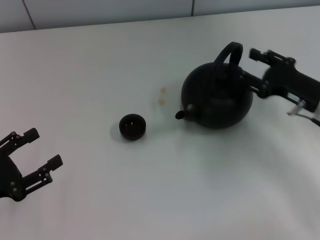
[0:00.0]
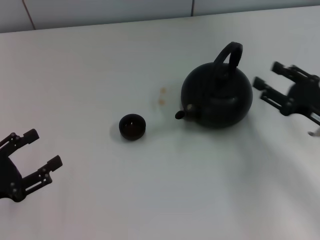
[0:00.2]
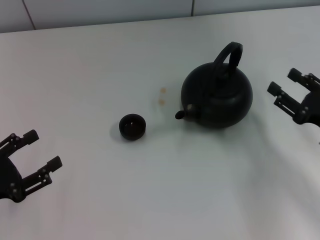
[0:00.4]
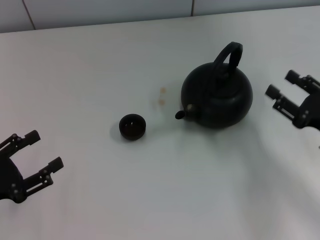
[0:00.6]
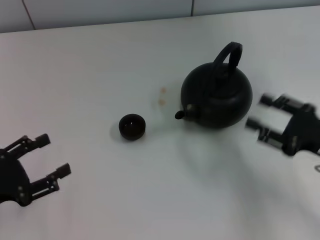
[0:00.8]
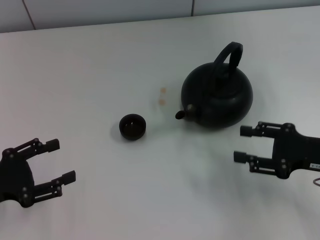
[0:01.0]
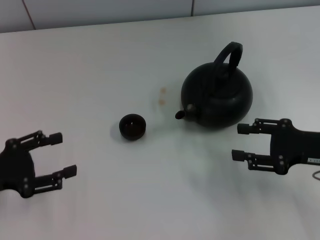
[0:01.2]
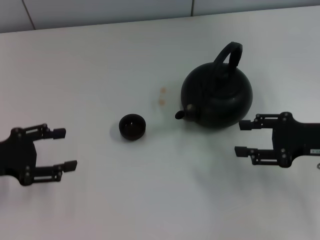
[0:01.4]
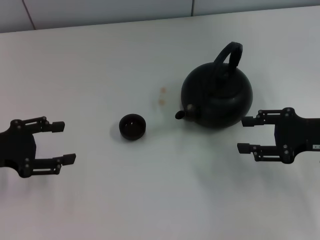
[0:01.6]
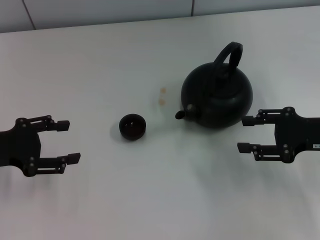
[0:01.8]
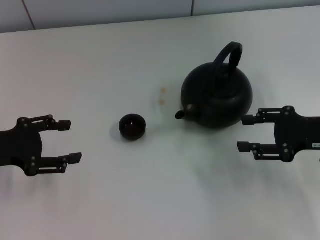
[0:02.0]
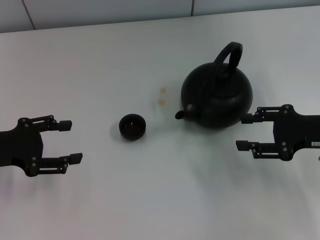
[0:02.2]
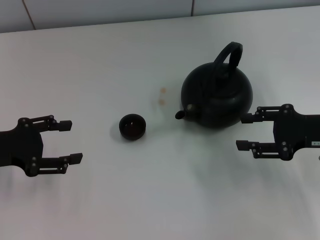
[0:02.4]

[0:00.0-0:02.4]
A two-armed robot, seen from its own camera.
Task of the whole recording: Grasp the handle of the teapot with one hand and pour tea into the teacup.
0:00.0 to 0:01.2: The left gripper ends up some 5 cm from where it was.
0:01.2 to 0:02.4: The left gripper moves approximately 5 cm.

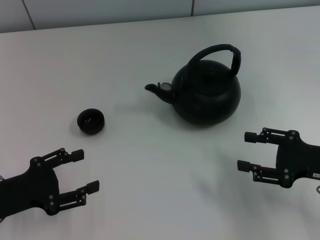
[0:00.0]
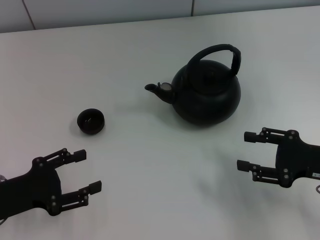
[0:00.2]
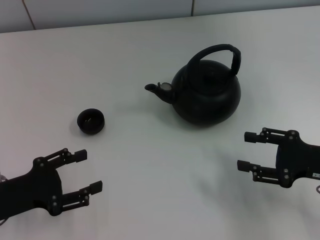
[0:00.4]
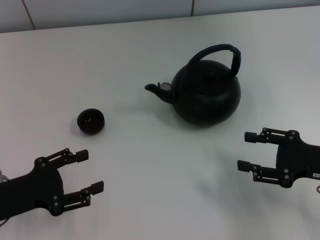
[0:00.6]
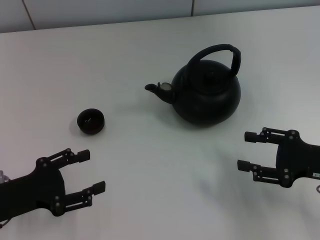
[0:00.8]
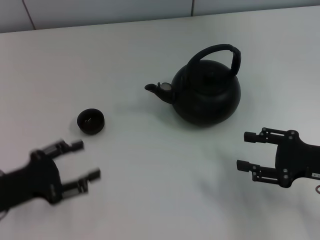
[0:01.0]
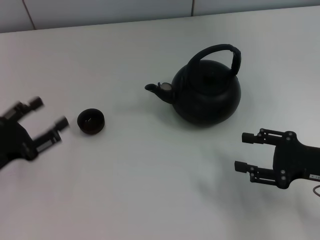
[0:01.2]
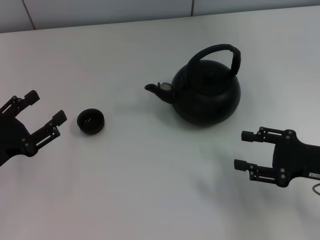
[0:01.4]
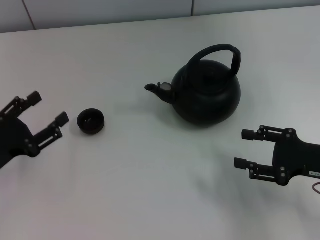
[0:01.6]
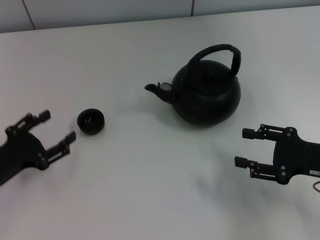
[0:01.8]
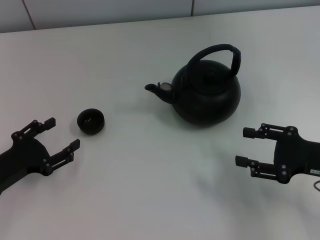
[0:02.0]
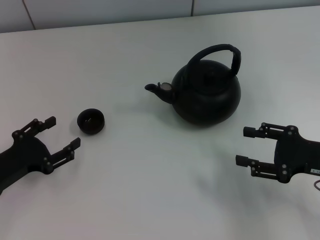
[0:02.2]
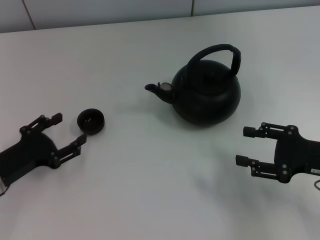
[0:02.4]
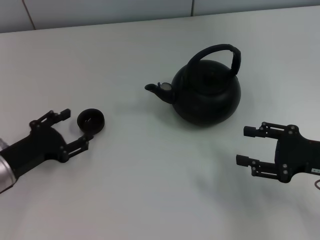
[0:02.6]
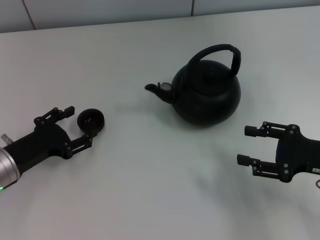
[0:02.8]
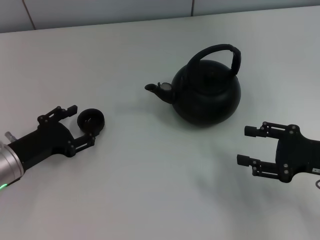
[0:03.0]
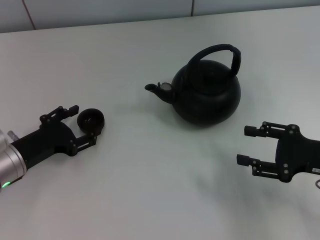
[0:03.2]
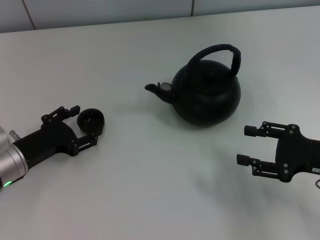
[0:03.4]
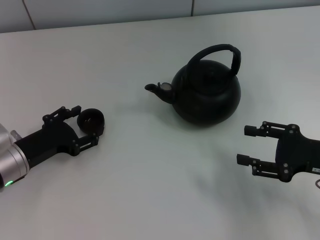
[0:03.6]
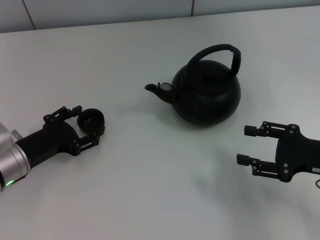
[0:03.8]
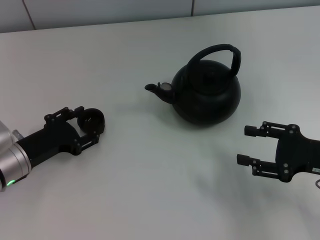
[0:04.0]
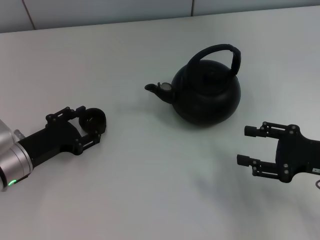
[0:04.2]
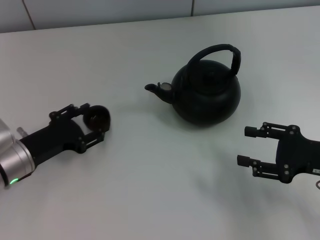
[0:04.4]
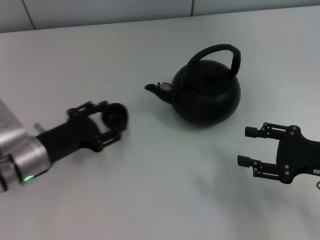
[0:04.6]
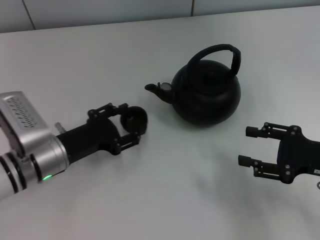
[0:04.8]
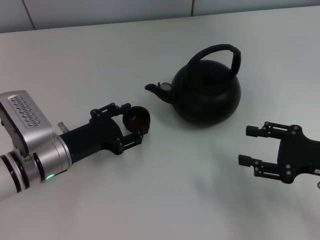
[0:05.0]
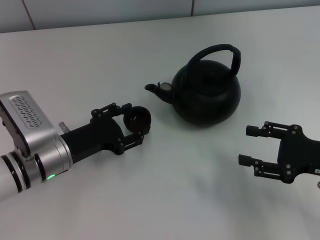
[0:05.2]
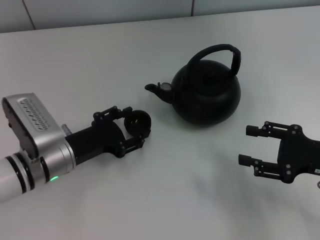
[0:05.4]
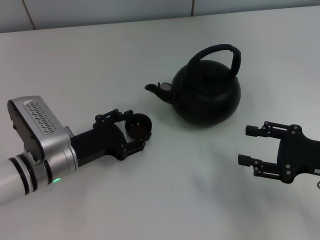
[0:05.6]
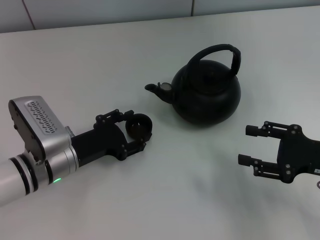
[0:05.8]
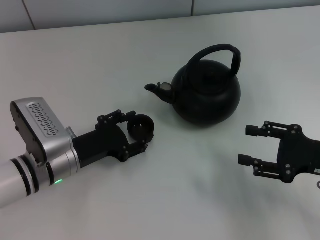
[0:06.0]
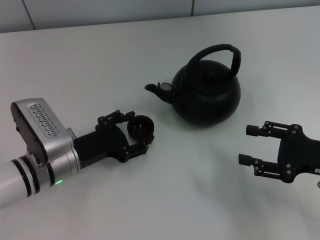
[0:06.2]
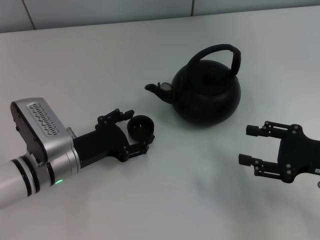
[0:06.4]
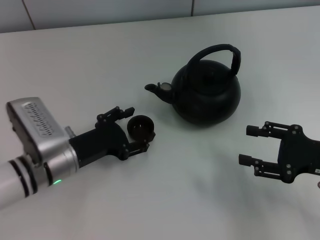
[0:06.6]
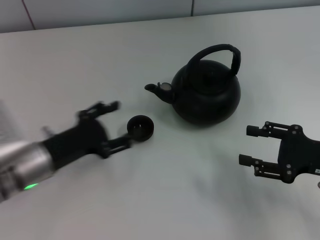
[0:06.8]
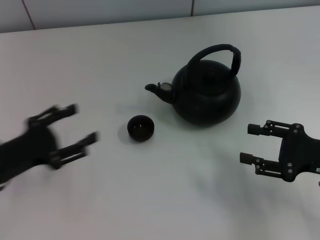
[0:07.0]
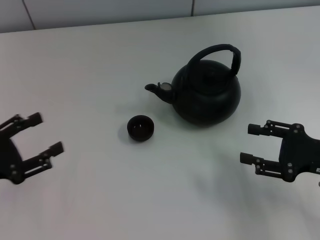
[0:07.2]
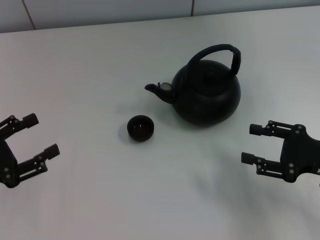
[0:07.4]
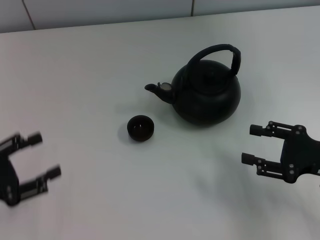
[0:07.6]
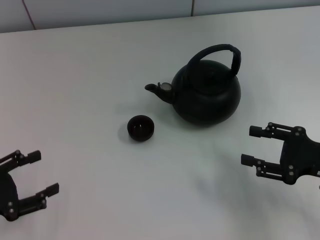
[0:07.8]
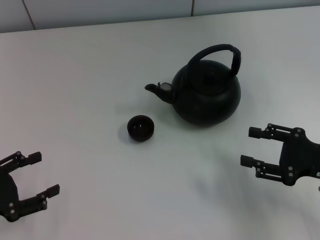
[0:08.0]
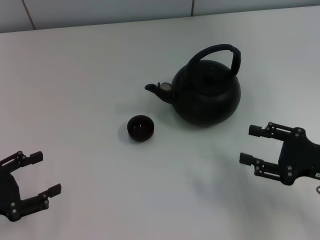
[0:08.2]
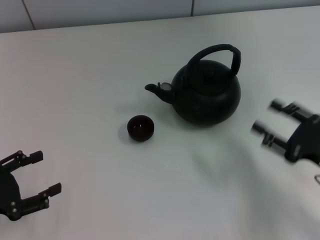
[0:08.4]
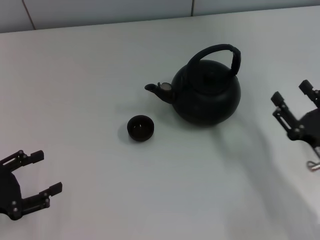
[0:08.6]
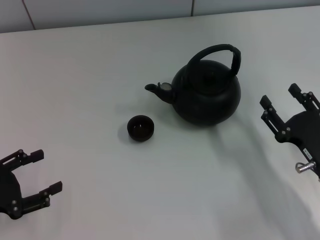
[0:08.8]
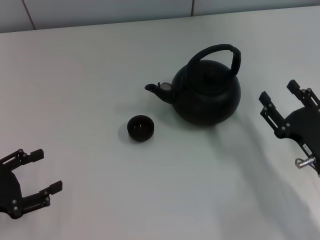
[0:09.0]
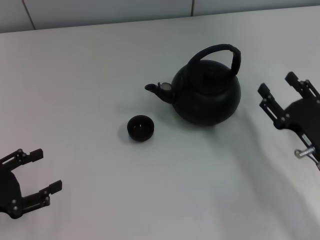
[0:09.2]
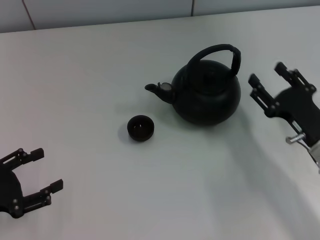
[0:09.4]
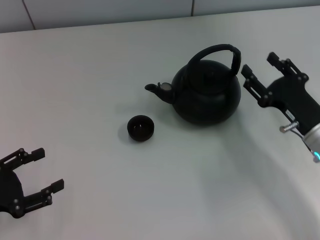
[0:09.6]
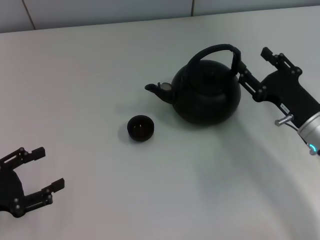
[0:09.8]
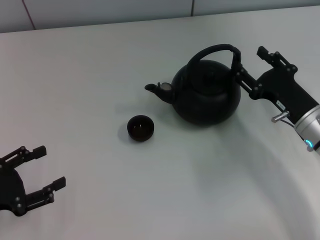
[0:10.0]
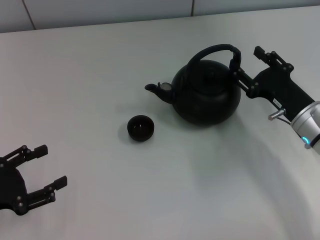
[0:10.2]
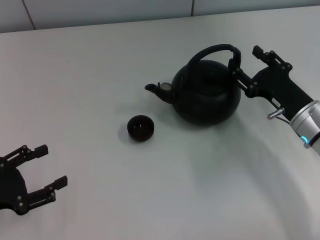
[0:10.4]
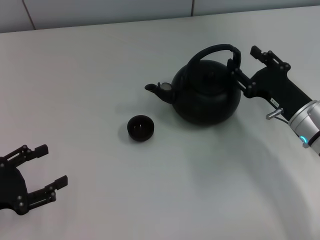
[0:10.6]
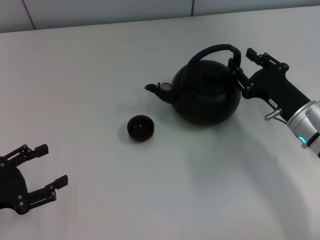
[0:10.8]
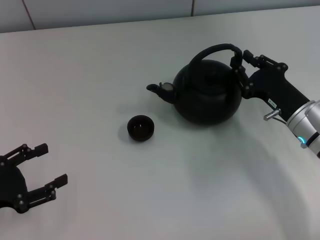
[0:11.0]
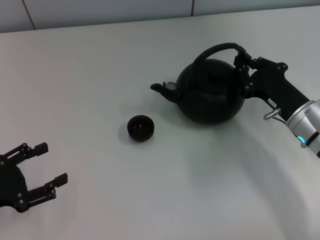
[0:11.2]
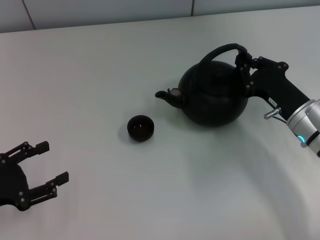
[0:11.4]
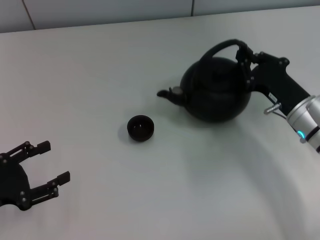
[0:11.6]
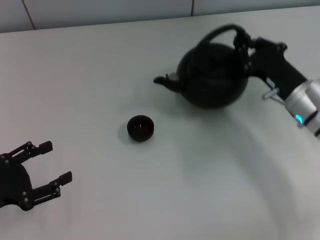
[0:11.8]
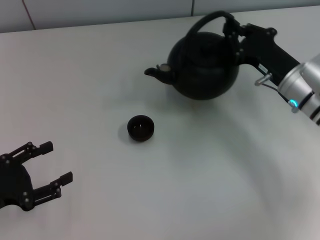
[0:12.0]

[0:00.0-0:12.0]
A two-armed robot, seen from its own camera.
Task of the whole recording: Grasp the handle of the teapot with one hand and pour tea into the teacup.
Step, 0:00.0 to 0:04.8: Pick up the teacup with the left gripper.
Step, 0:05.0 to 0:06.8: Place the teacup in the center of view with the left gripper.
0:01.6 to 0:03.0: The left gripper ends up roughly 5 cm from where it was.
0:03.0 to 0:04.4: The grippers stay close to where they were, moving slightly.
0:04.4 to 0:06.0: The left gripper is displaced to the right by about 5 cm.
0:06.0 to 0:07.6: The left gripper heads to the left and backward, covering about 15 cm.
0:07.6 to 0:09.0: The right gripper travels to the left by about 5 cm.
0:09.0 to 0:10.4: The right gripper travels forward by some 10 cm.
0:10.4 to 0:12.0: The right gripper ends up roughly 5 cm from where it was, and closes.

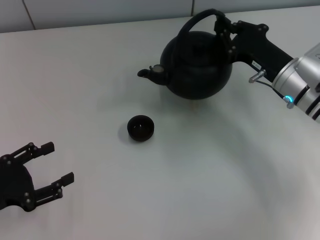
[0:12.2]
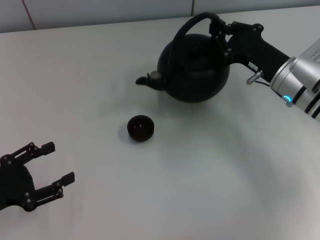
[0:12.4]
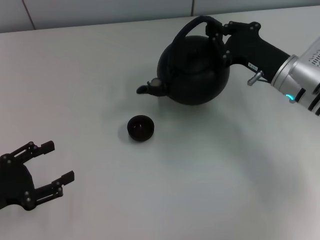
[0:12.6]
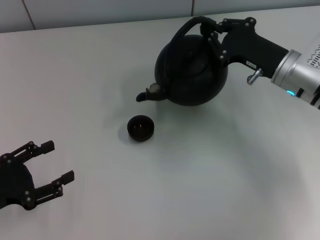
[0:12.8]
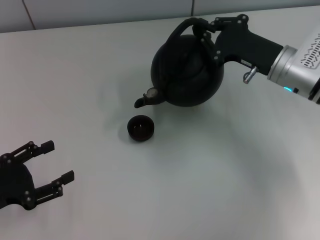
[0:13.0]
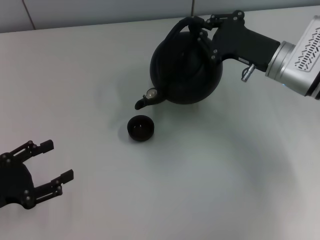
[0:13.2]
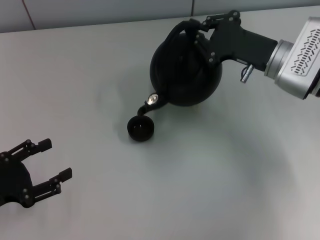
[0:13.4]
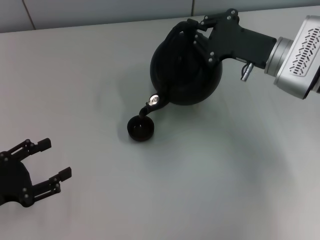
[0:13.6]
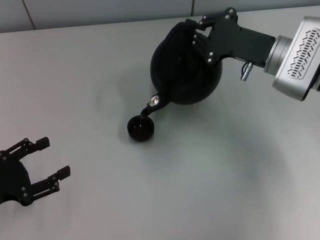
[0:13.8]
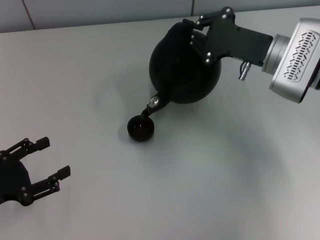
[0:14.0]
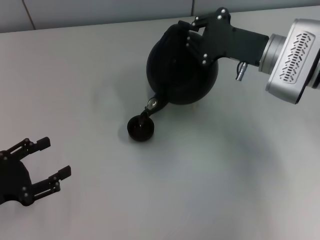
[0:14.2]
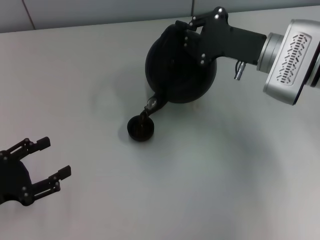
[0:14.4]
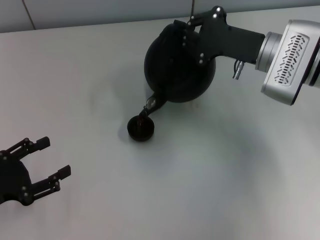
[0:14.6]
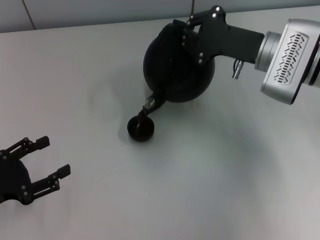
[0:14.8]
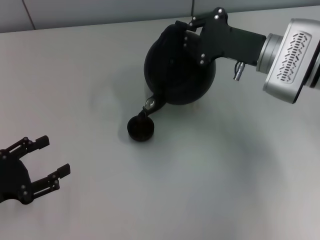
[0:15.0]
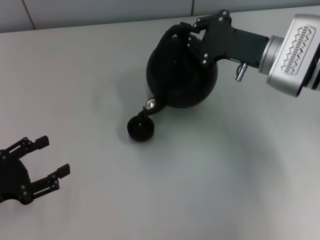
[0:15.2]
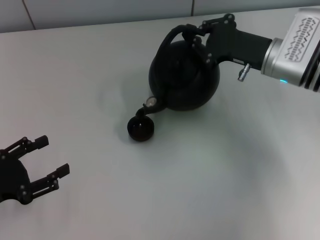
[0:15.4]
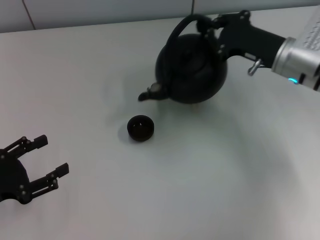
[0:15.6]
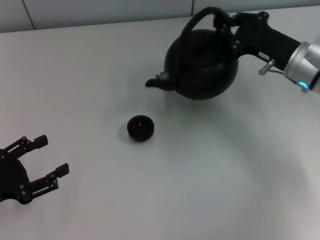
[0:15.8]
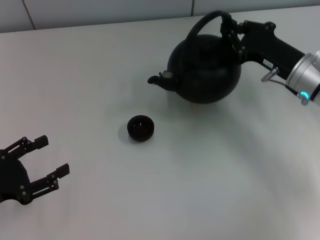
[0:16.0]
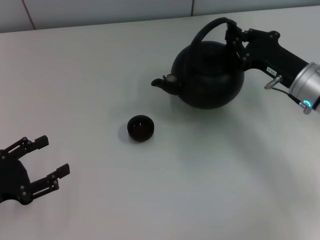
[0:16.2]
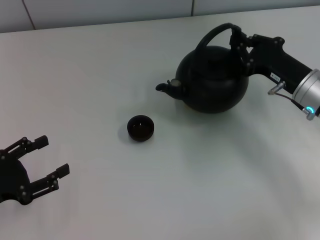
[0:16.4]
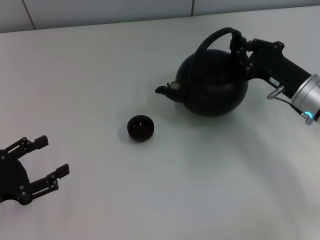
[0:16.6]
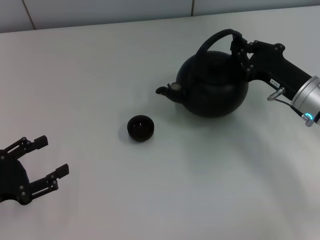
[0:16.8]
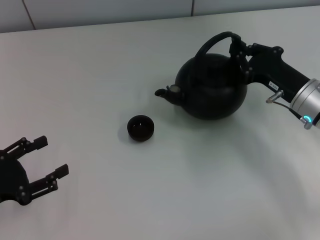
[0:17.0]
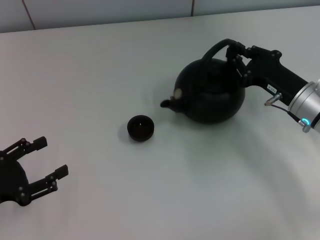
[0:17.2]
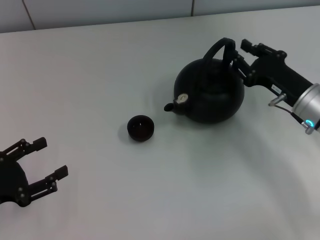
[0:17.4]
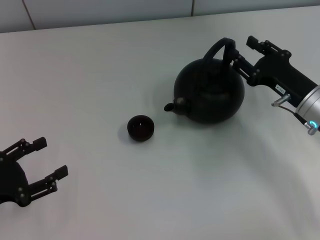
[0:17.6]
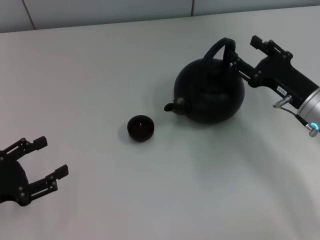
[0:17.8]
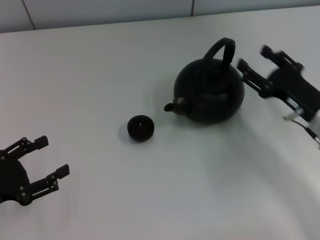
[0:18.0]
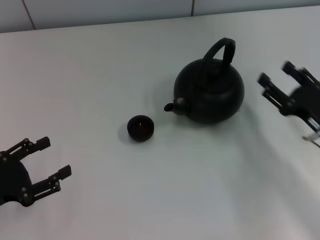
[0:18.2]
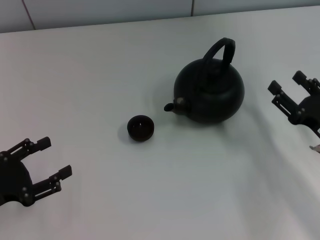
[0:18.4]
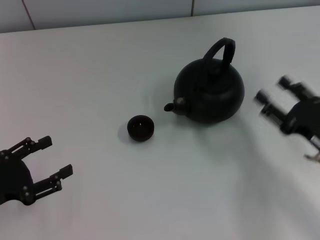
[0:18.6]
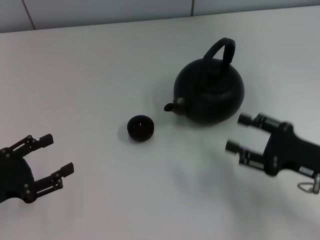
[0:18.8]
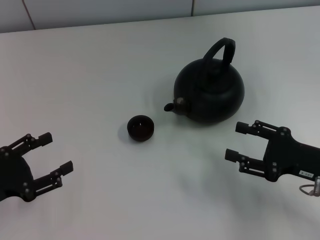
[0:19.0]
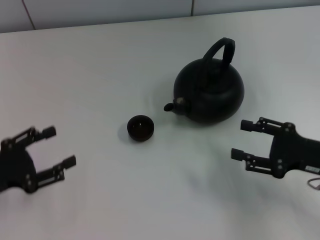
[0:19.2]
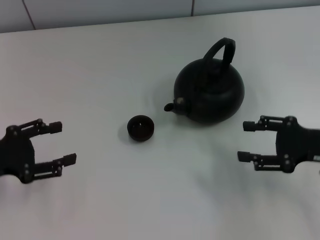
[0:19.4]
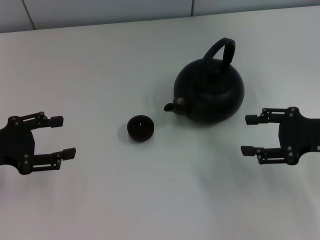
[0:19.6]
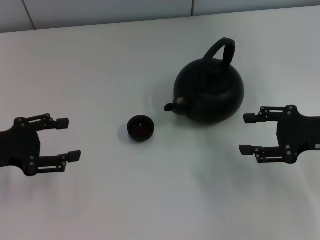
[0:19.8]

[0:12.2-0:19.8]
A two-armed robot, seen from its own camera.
Task of the whole recording: Grasp the handle of the teapot with one hand and pour tea into the teacup.
Step, 0:15.6 to 0:17.4: Put down the teapot with the right gripper.
0:13.8 to 0:15.2: The grippers make only small movements.
0:15.2 to 0:16.8: The right gripper moves backward and downward, approximately 10 cm.
0:16.8 to 0:18.2: The right gripper is displaced backward by some 10 cm, and opens.
0:18.2 to 0:19.8: The right gripper travels upward by approximately 5 cm; the left gripper moves forward, about 10 cm.
